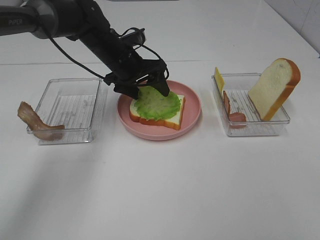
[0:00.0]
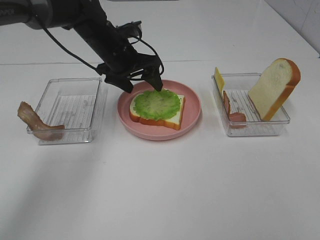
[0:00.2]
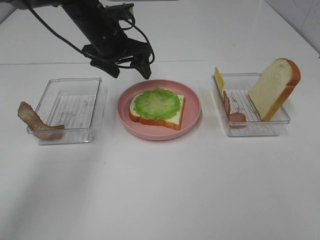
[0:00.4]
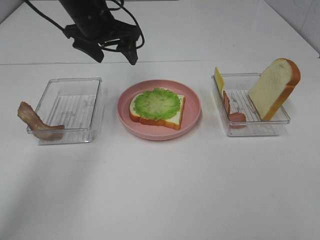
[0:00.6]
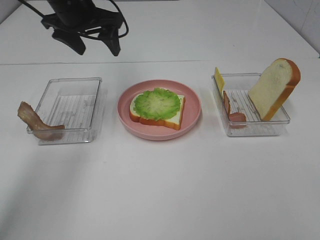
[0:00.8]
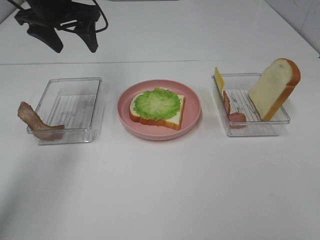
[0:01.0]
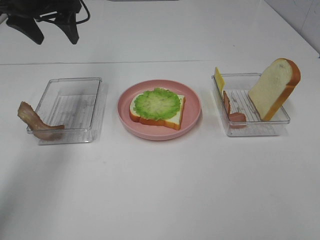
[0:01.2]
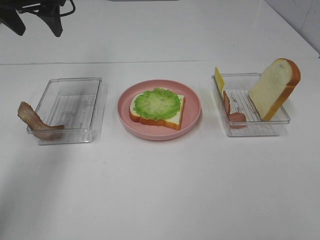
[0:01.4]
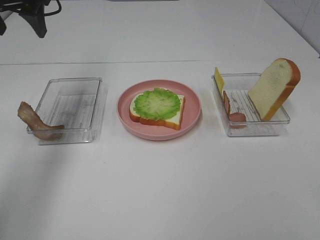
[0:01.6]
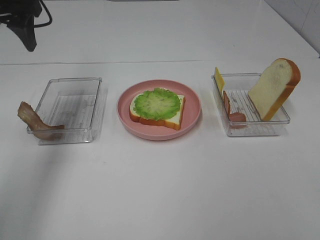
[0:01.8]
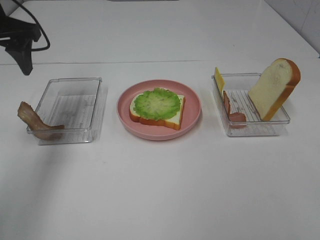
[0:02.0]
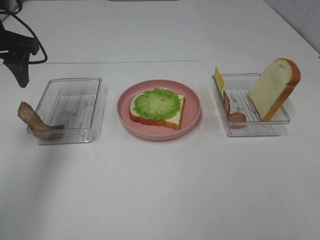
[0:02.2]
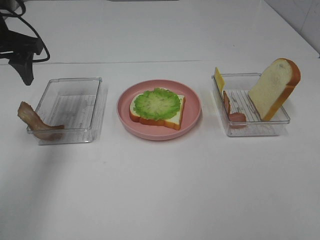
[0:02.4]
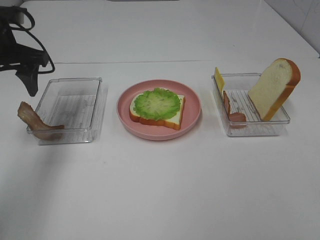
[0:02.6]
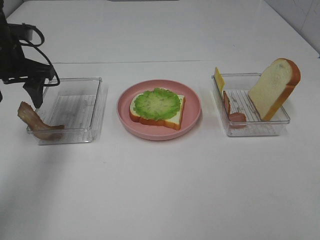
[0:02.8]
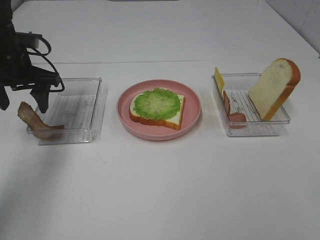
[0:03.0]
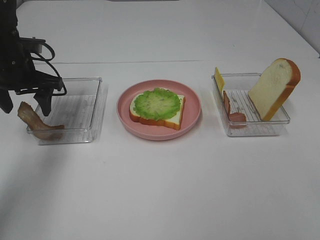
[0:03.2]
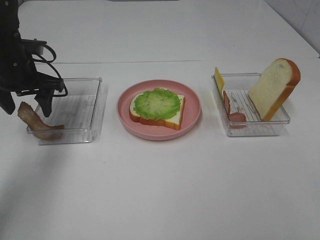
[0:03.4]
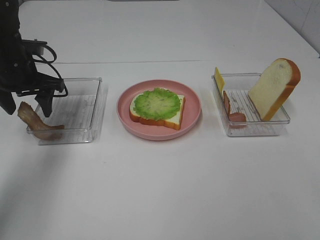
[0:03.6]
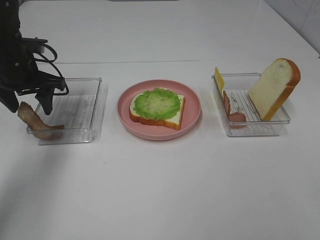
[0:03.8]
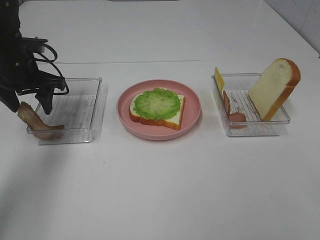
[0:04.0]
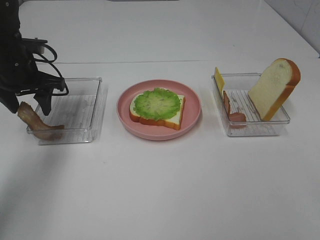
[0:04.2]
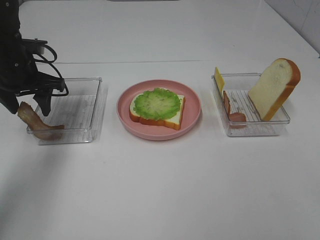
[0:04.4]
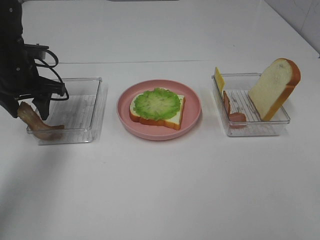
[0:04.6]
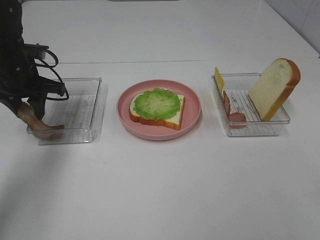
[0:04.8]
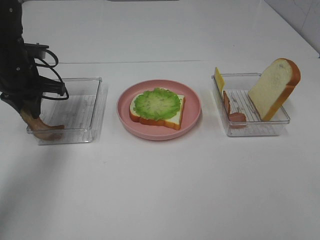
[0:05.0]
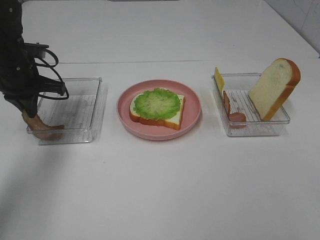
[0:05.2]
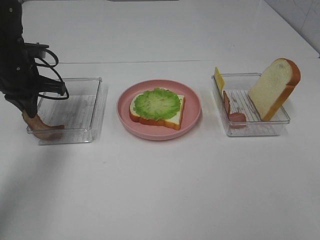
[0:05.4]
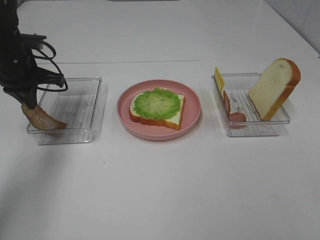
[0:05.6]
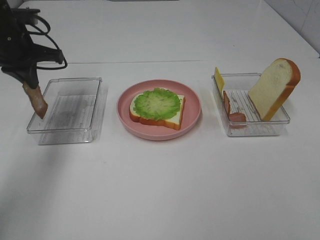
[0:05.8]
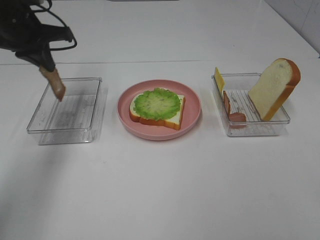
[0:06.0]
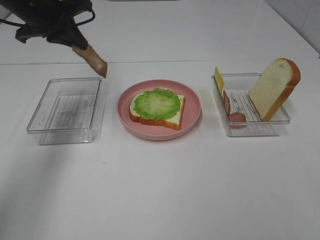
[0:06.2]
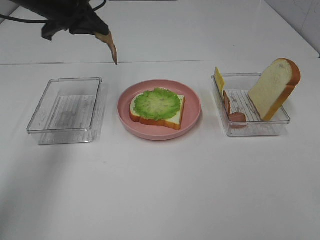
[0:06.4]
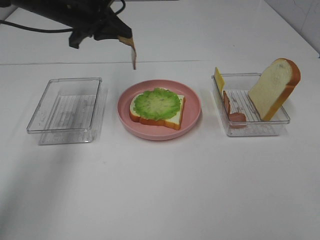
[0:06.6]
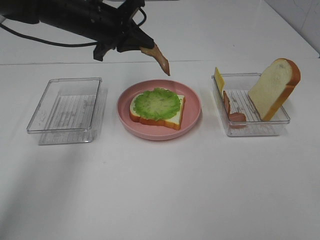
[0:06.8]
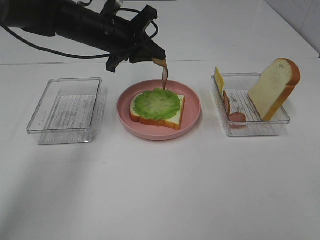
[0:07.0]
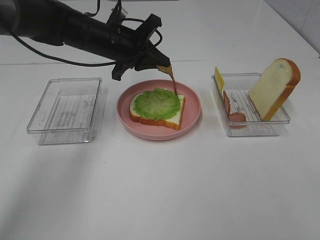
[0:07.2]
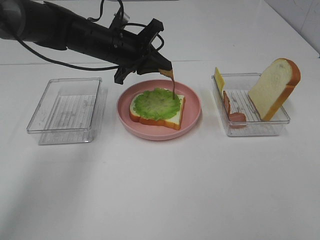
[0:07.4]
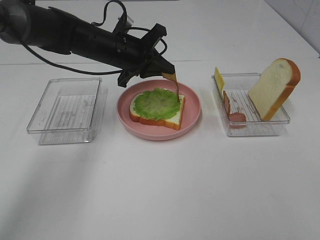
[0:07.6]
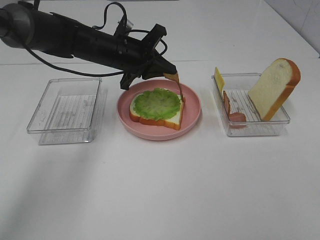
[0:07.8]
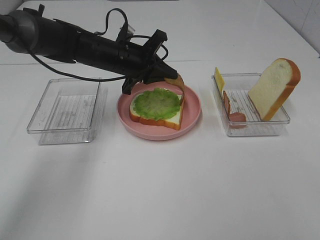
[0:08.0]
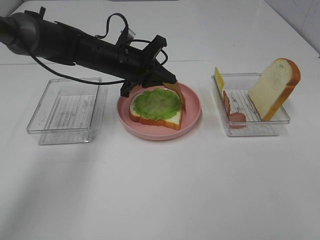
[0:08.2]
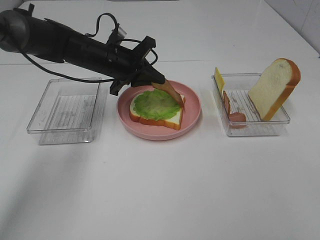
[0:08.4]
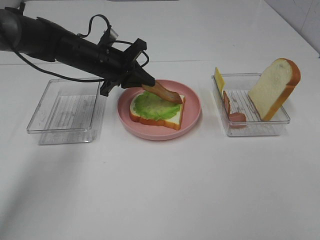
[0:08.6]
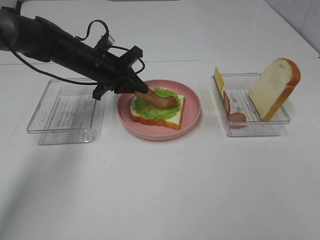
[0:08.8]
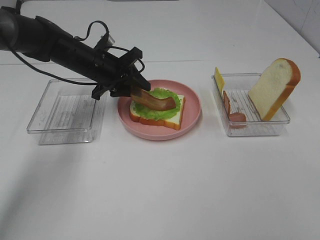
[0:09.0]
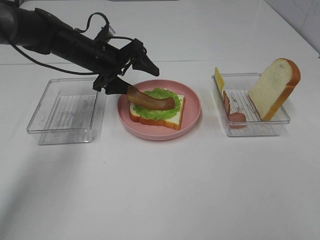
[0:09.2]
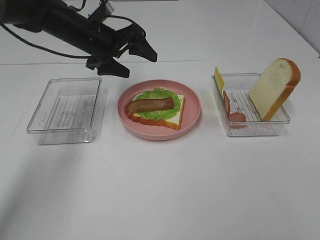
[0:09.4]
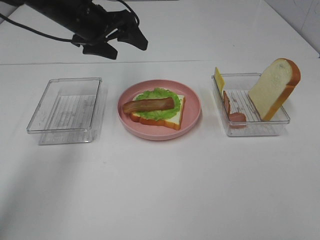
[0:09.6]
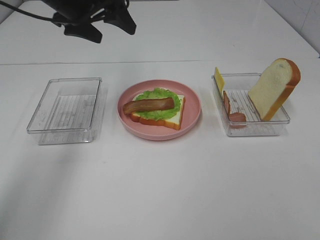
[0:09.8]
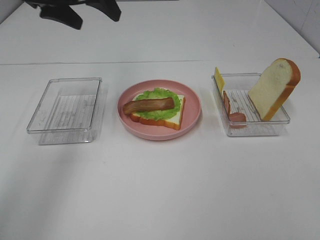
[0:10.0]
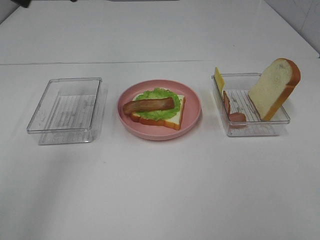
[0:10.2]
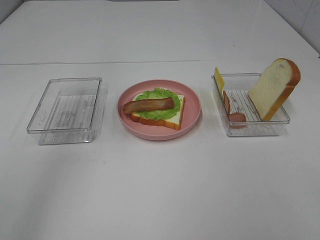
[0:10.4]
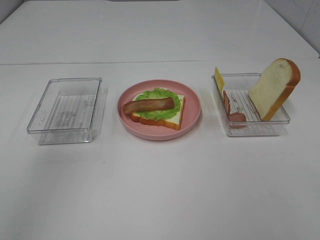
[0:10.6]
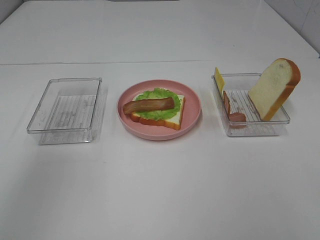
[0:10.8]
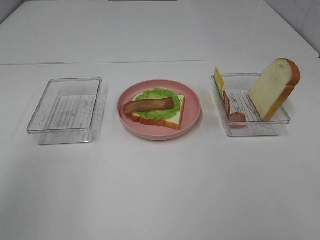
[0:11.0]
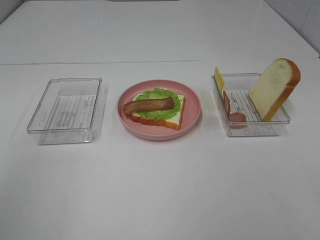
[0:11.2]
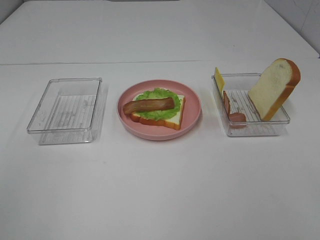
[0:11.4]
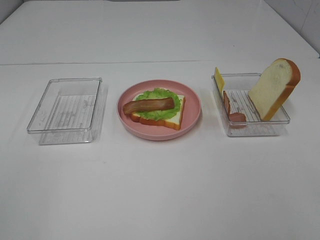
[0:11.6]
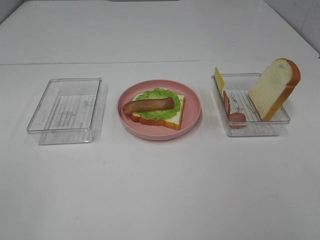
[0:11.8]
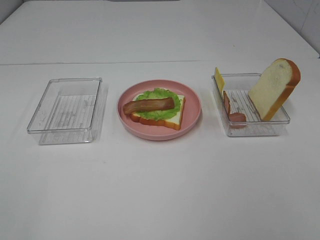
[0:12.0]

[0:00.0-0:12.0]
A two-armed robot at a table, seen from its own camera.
Task of the whole recording: Make sandwiches.
Step, 0:00.6 to 0:05.0: Left hand:grab the bacon.
Step, 0:05.2 to 0:09.6: Left hand:place bacon on lettuce slice.
0:00.0 to 0:01.6: The left gripper goes some 25 cm upward and to the left.
0:01.6 to 0:03.0: The left gripper goes about 15 cm downward.
0:03.0 to 0:04.4: The grippers move only a little.
0:04.4 to 0:06.0: The left gripper travels upward by some 10 cm, and closes.
0:06.0 to 0:07.6: The left gripper moves to the right and downward, about 15 cm.
0:07.6 to 0:09.0: The left gripper changes place by about 5 cm, and opens up.
0:09.0 to 0:10.4: The left gripper shifts approximately 30 cm upward and backward, and opens its fingers.
0:10.4 to 0:12.0: The left gripper travels backward by about 35 cm.

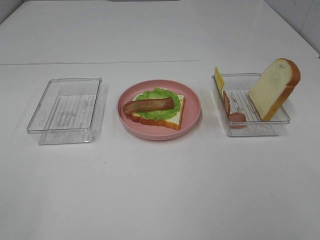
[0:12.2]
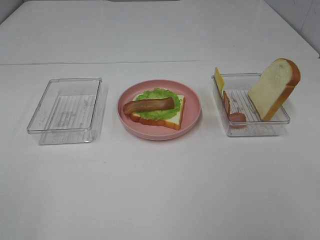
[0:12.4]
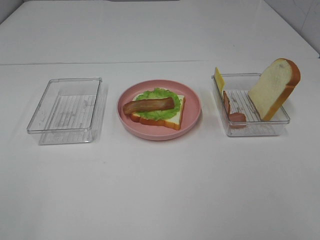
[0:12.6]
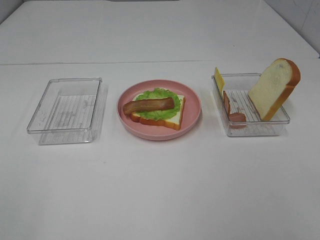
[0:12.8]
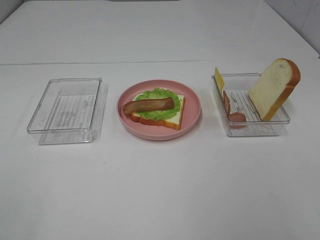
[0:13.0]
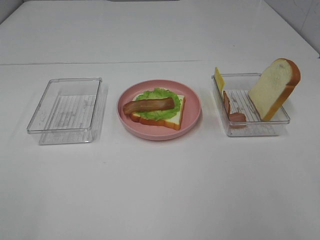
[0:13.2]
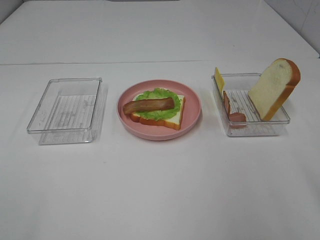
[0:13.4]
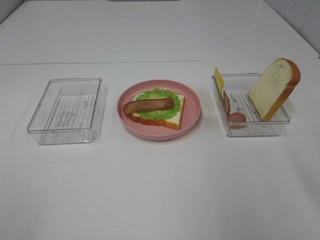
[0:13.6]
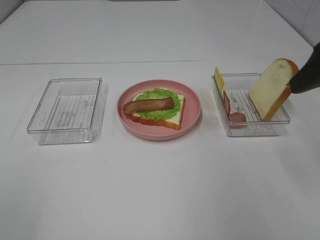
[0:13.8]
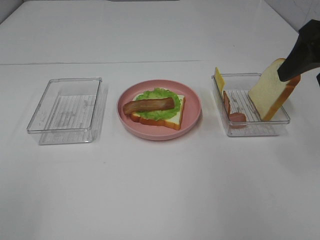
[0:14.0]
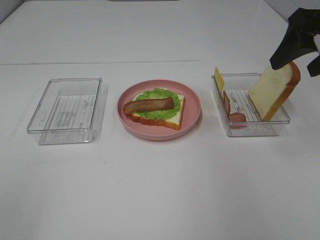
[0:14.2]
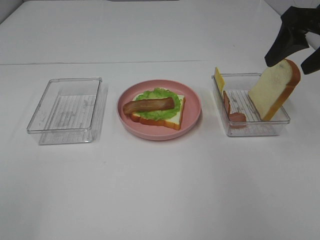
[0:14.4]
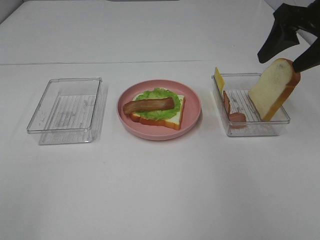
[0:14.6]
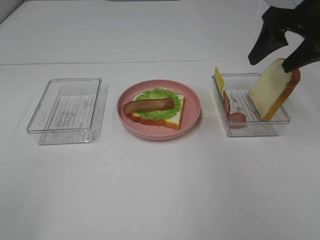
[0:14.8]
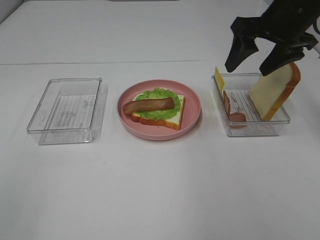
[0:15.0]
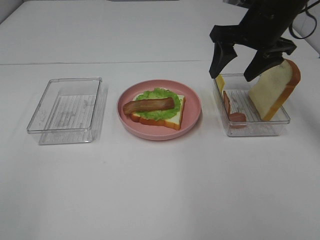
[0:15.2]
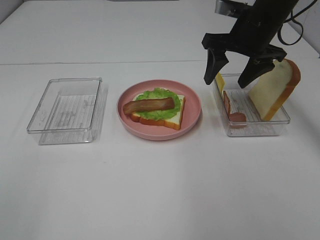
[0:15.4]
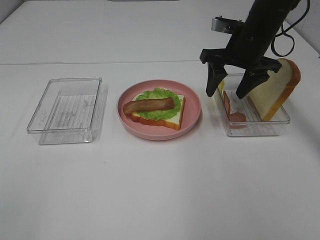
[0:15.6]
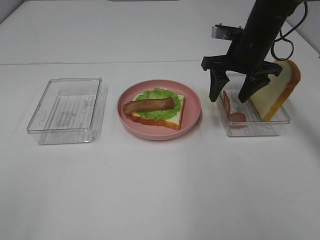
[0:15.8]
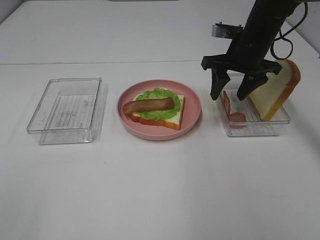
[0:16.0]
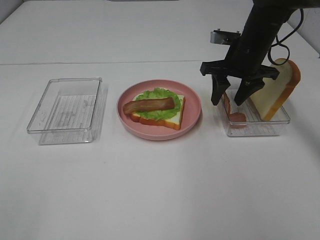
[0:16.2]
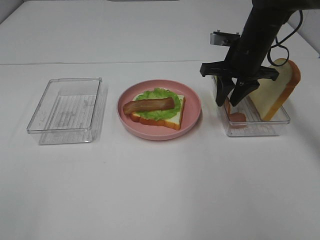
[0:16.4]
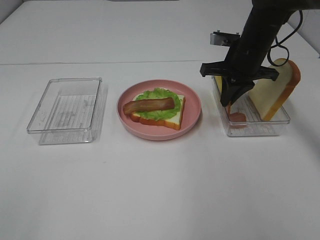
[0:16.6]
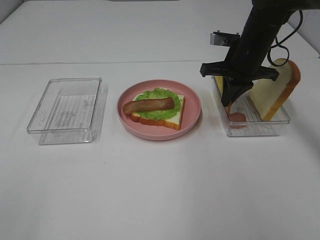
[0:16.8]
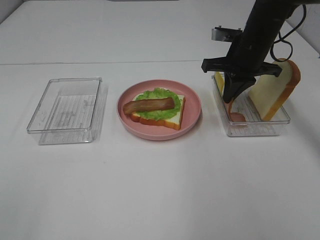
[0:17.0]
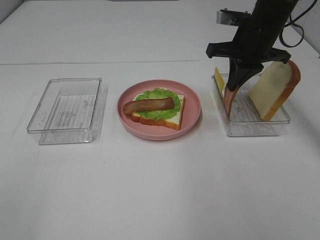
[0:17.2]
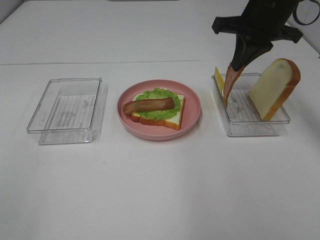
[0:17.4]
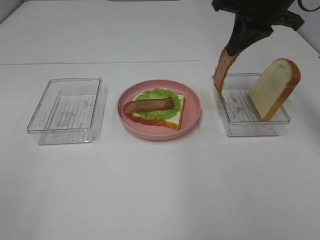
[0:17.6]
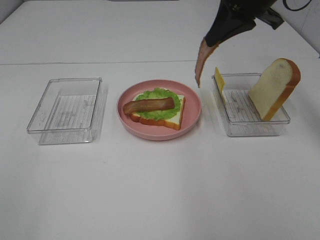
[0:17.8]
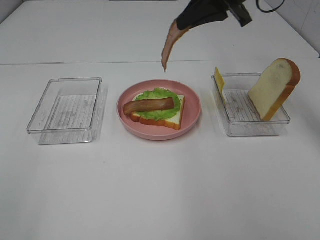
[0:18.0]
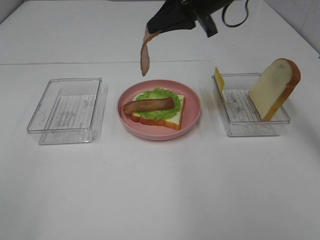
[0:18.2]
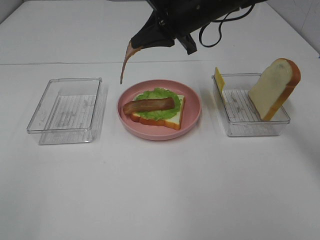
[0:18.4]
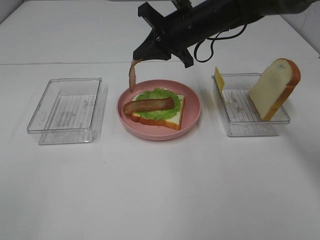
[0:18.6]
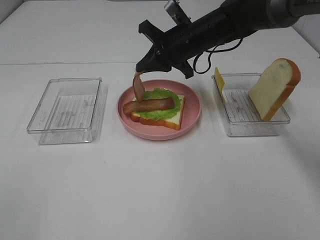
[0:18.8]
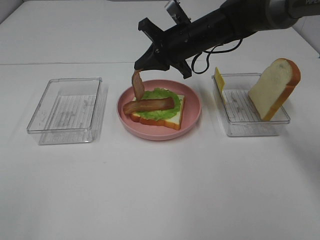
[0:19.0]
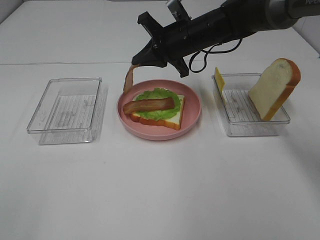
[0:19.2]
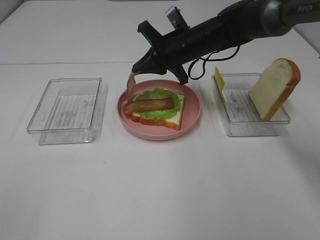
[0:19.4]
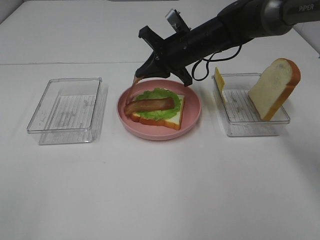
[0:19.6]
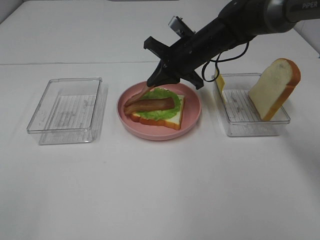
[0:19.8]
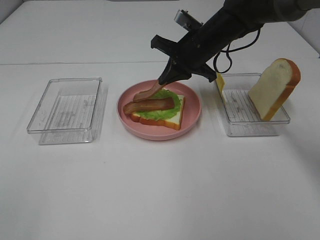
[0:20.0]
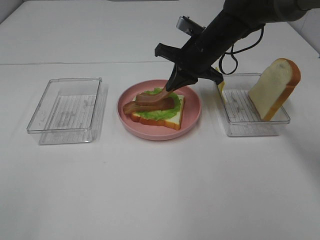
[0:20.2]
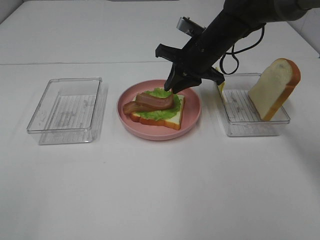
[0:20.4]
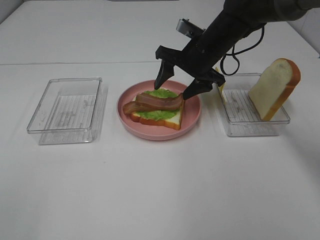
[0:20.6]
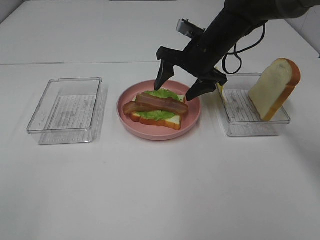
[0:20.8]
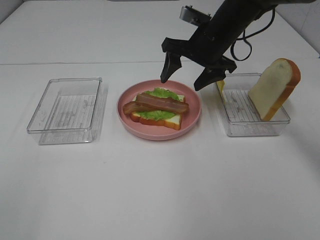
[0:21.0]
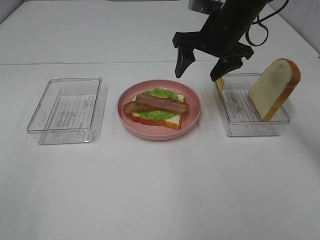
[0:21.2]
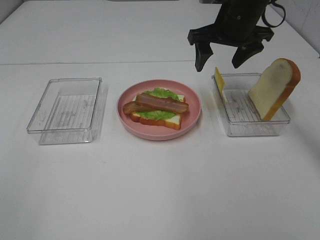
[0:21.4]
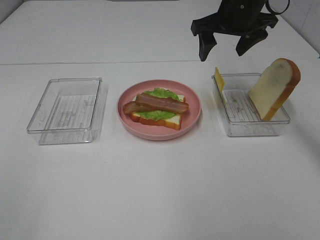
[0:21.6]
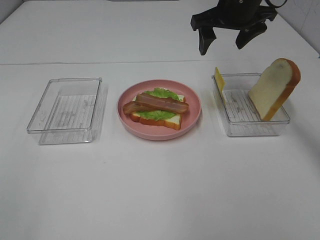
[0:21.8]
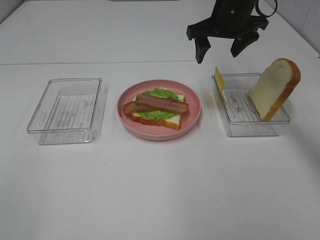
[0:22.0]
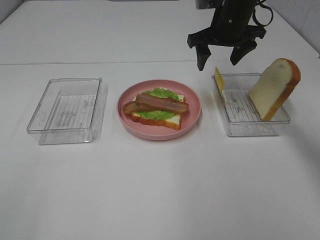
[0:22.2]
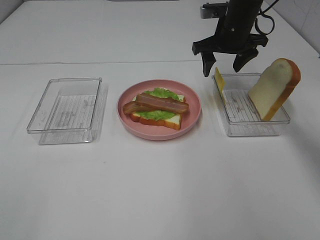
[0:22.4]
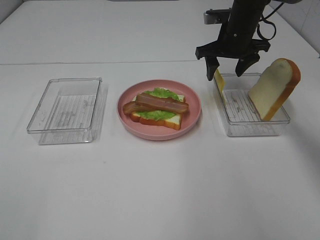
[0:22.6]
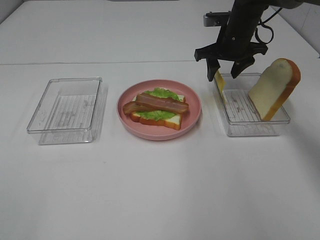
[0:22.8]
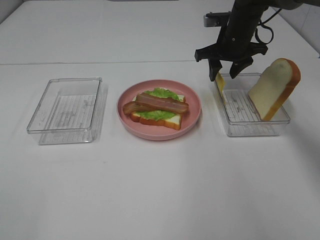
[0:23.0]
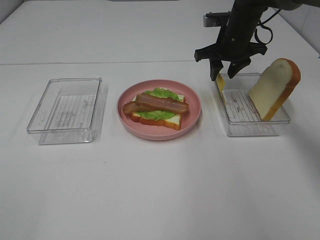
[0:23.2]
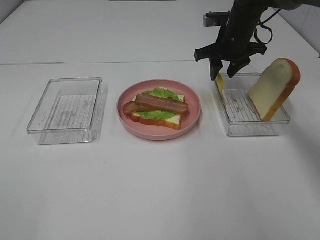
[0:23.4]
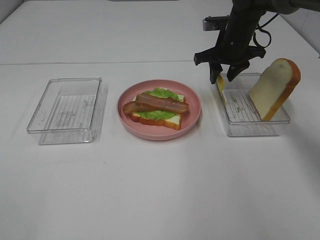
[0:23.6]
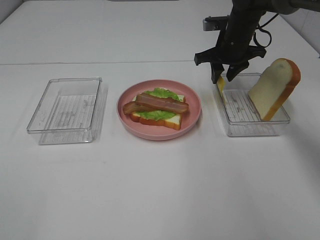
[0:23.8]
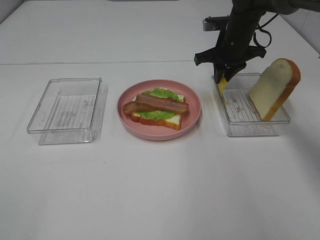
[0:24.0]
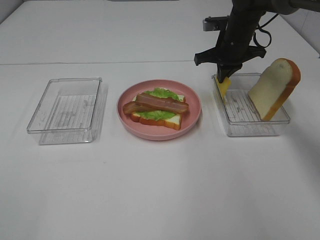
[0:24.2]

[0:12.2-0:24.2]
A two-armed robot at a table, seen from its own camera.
Task of the whole recording: Make sandwiches.
Step, 0:12.2 to 0:17.0: Right hand:grab the bacon.
Step, 0:17.2 to 0:21.0: Right hand:place bacon on bacon.
Step, 0:21.2 to 0:24.2: Right hand:grab the cheese slice.
0:12.2 to 0:13.8: The right gripper heads forward, covering roughly 25 cm.
0:13.8 to 0:15.2: The right gripper is displaced forward and to the left by about 20 cm.
0:15.2 to 0:16.6: The right gripper shifts some 10 cm downward, and closes up.
0:16.6 to 0:18.2: The right gripper travels upward and to the left by roughly 15 cm.
0:18.2 to 0:19.8: The right gripper moves downward, about 10 cm.
0:19.8 to 0:21.2: The right gripper travels upward by some 5 cm, and opens up.
0:21.2 to 0:22.6: The right gripper shifts some 5 cm forward.
0:22.6 to 0:24.2: The right gripper closes up.
